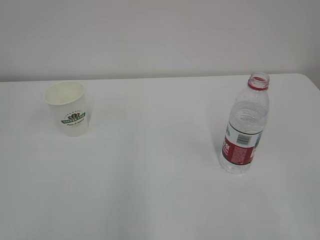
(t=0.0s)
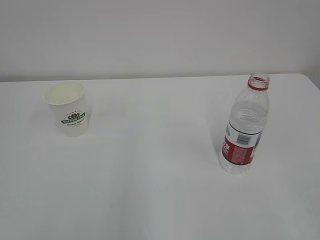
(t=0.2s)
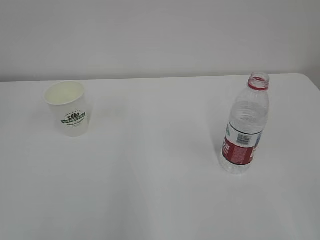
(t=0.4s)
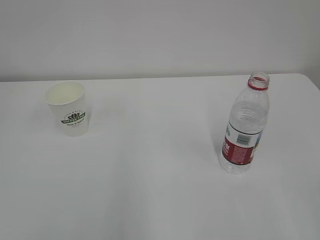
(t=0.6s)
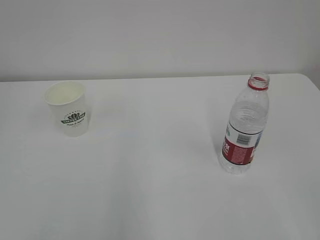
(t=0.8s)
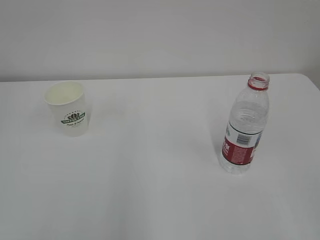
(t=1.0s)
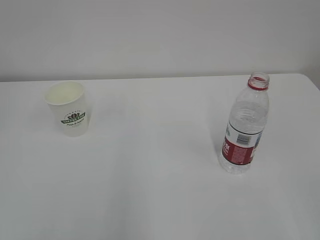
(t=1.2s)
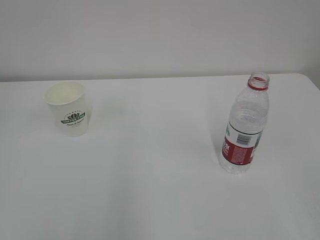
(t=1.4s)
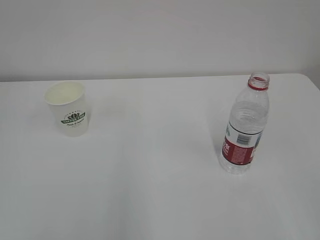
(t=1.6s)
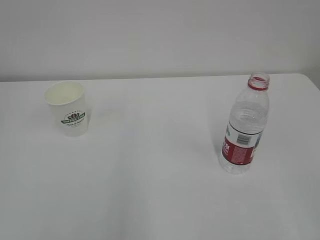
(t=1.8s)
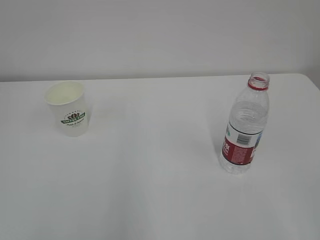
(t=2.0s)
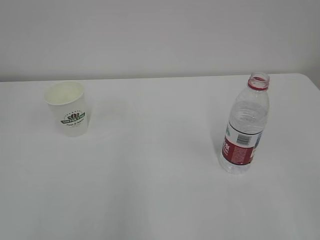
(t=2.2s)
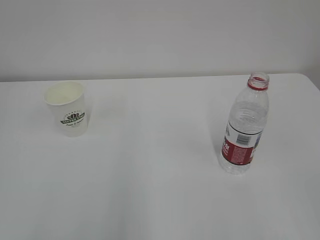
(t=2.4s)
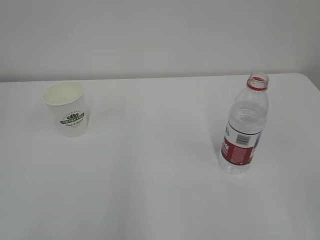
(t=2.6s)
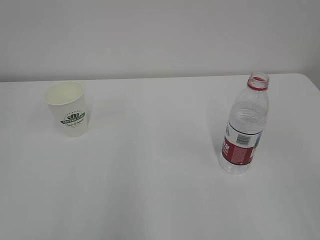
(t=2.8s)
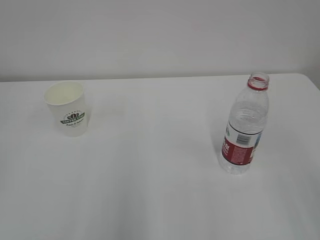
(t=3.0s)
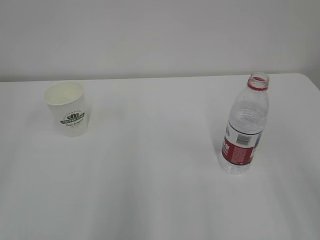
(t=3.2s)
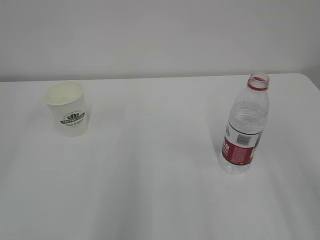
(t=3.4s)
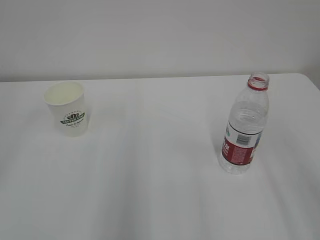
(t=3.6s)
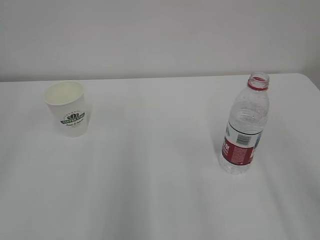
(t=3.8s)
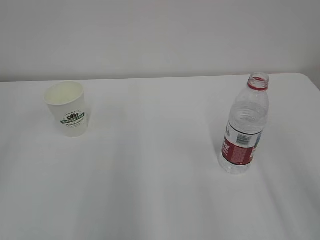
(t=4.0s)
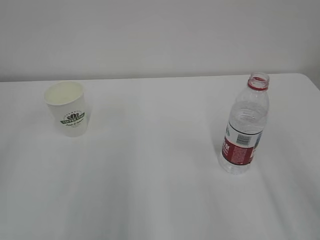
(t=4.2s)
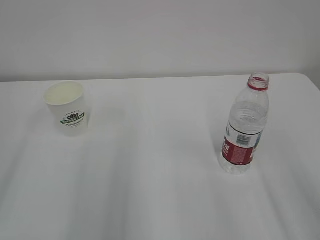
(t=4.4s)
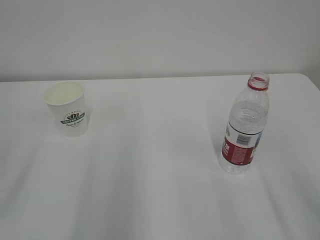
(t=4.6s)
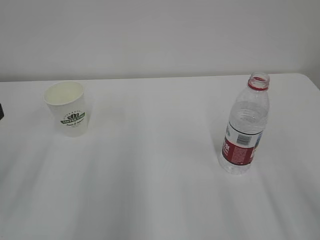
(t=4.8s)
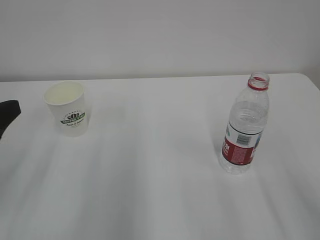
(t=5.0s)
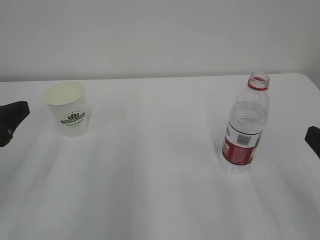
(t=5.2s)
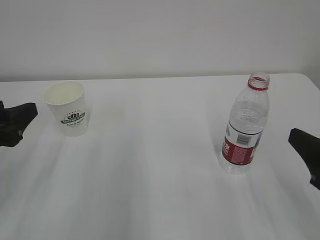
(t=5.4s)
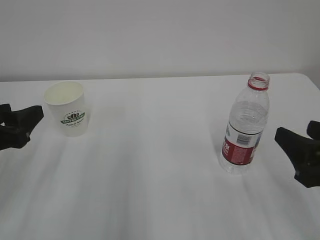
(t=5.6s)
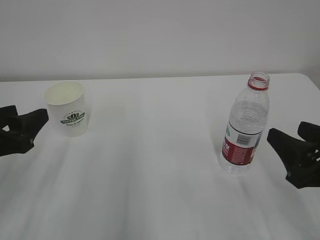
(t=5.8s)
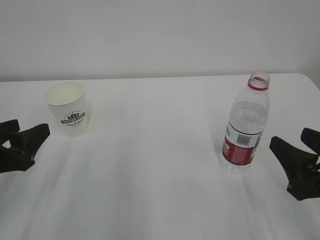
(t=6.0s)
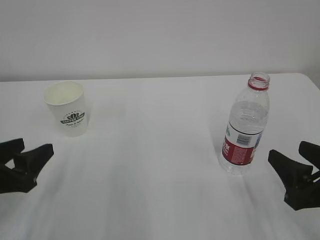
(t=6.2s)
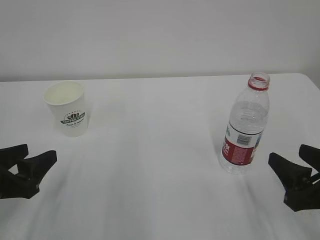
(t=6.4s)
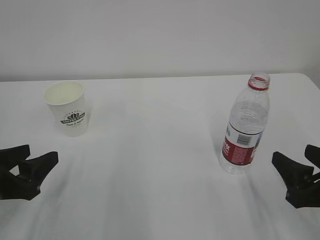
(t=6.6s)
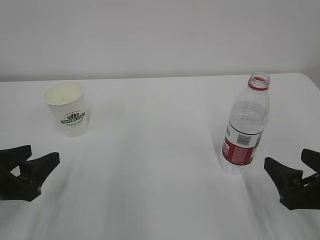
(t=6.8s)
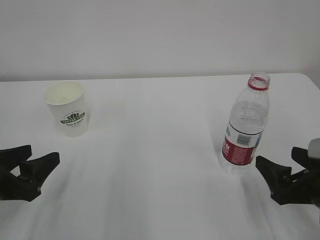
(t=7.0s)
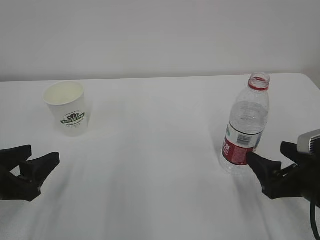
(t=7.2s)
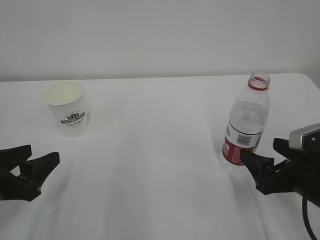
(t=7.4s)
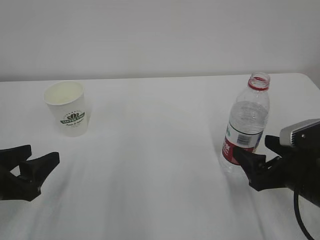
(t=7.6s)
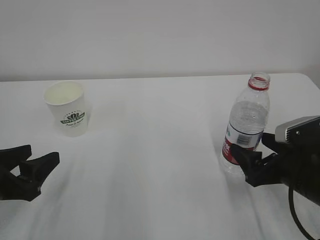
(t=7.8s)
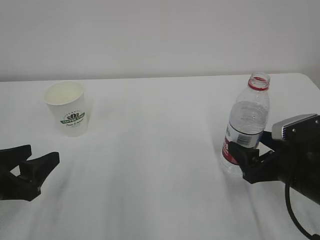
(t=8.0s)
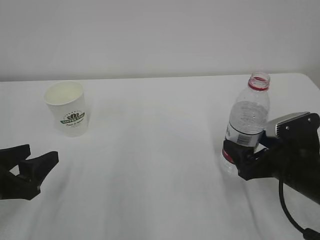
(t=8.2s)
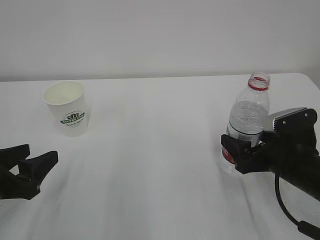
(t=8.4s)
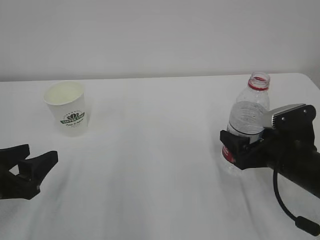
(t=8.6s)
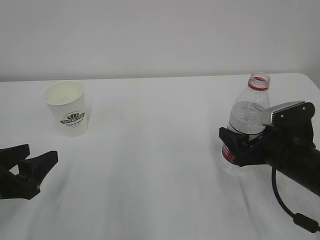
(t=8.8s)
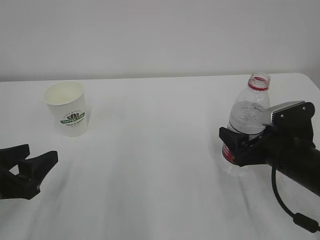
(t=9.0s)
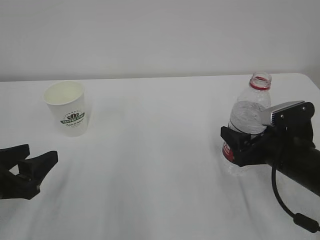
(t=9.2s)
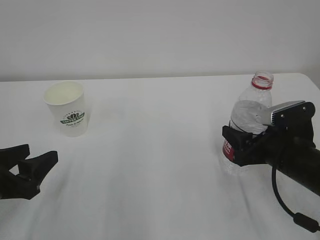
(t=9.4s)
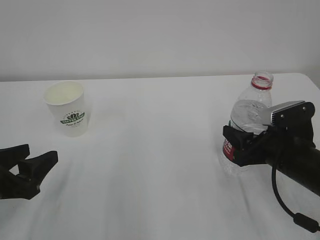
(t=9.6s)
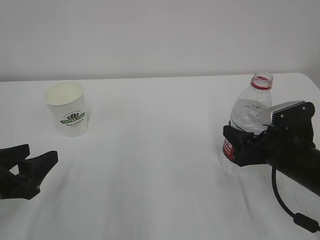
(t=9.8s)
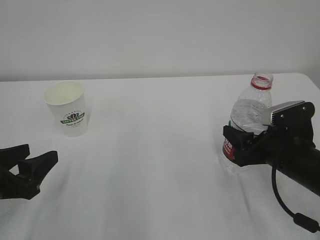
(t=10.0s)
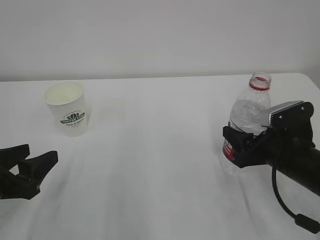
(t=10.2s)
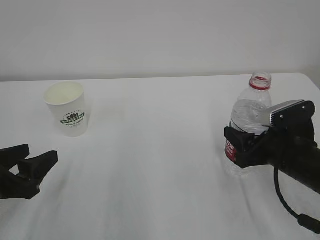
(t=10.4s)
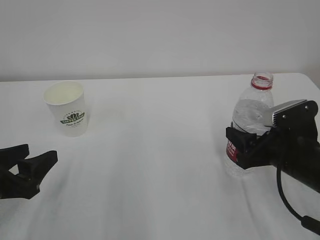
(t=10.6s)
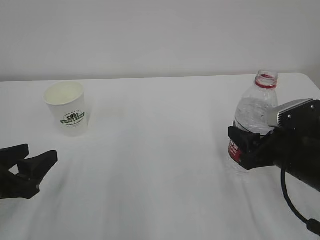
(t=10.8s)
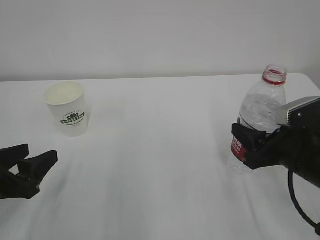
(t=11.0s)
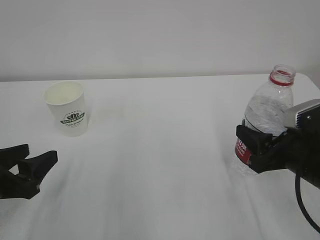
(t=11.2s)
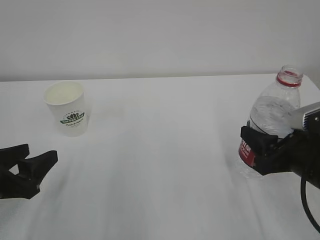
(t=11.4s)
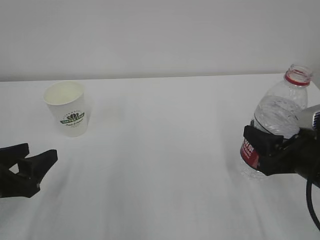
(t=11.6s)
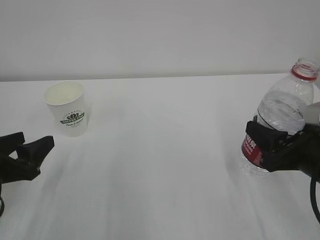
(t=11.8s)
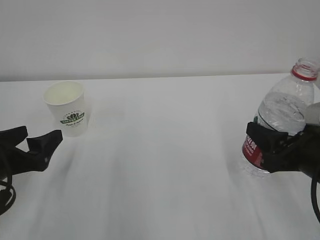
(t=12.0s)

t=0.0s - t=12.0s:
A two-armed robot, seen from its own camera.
t=4.4s - t=6.0s: The left gripper heads downward, forward and to the right, covering some 15 cm, while the right gripper is displaced downward and forward by about 10 cm.
t=6.0s - t=7.6s: The right gripper travels forward by about 5 cm, and opens up.
t=7.6s - t=9.0s: The grippers move only a little.
t=9.0s - t=10.4s: The right gripper closes up.
t=10.4s - t=12.0s: The right gripper heads backward, covering roughly 5 cm, while the left gripper opens its fingers.

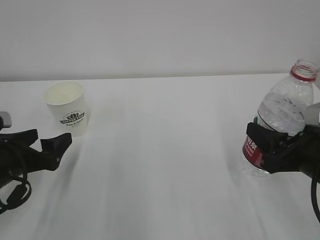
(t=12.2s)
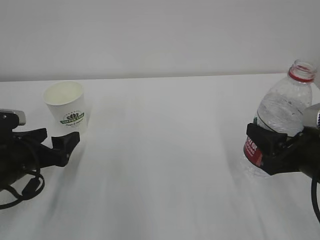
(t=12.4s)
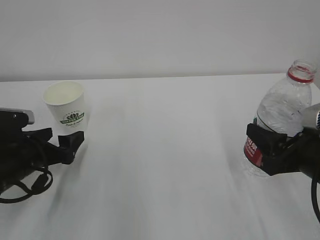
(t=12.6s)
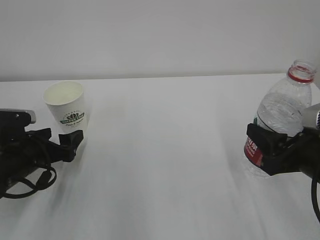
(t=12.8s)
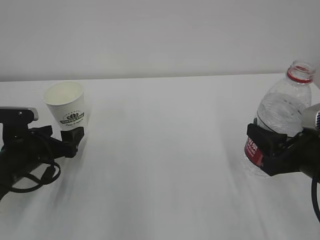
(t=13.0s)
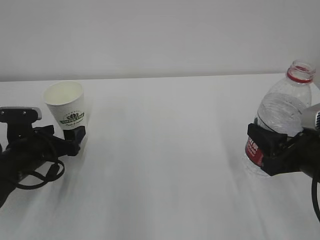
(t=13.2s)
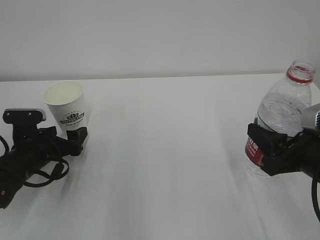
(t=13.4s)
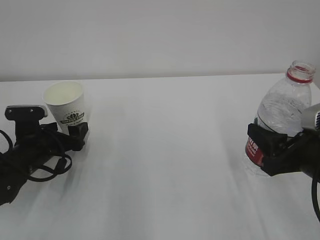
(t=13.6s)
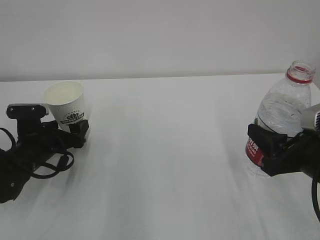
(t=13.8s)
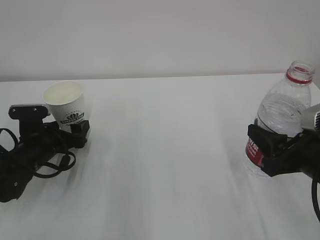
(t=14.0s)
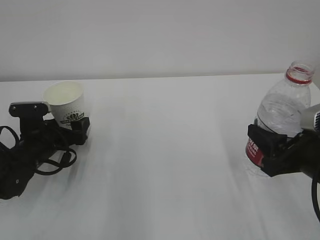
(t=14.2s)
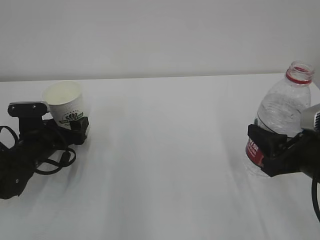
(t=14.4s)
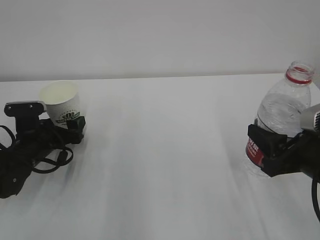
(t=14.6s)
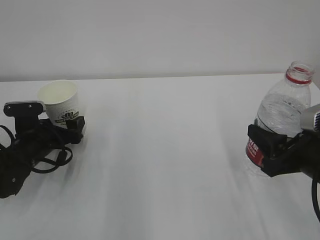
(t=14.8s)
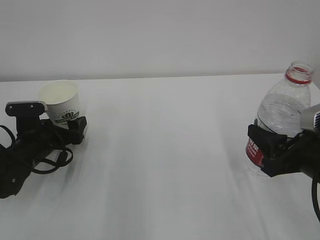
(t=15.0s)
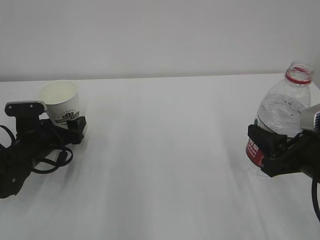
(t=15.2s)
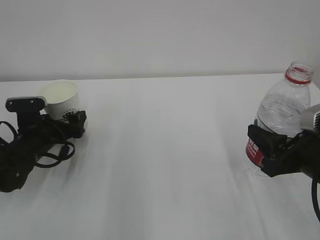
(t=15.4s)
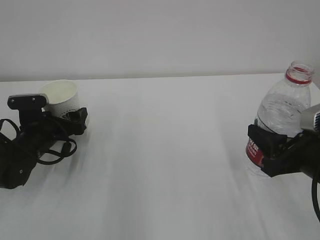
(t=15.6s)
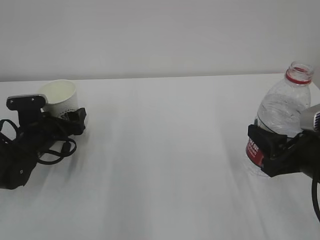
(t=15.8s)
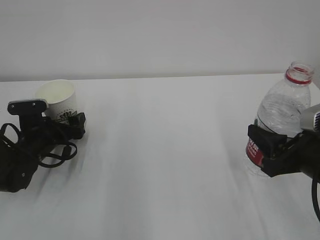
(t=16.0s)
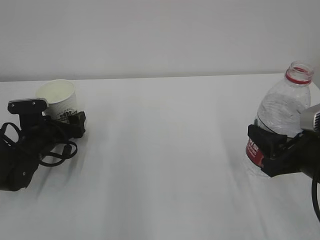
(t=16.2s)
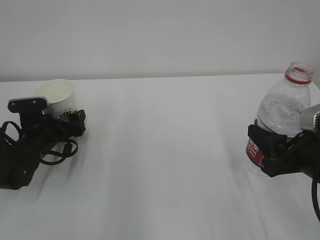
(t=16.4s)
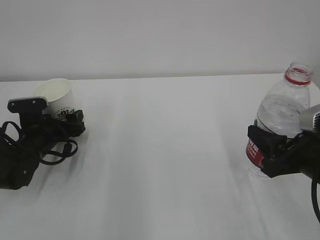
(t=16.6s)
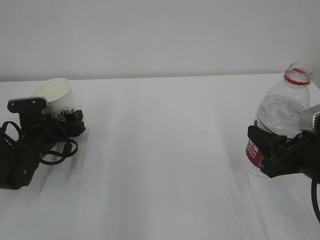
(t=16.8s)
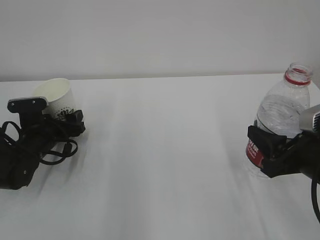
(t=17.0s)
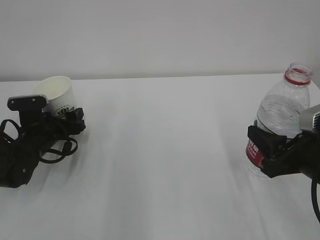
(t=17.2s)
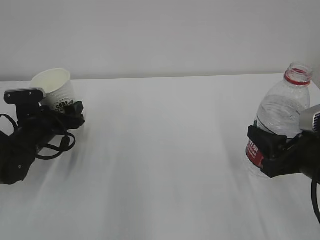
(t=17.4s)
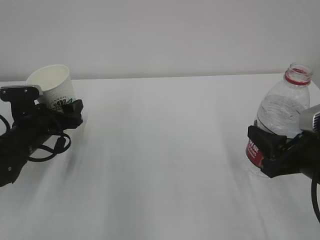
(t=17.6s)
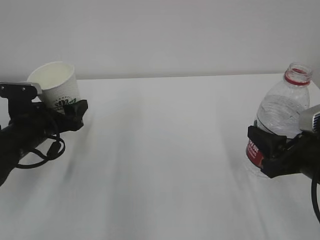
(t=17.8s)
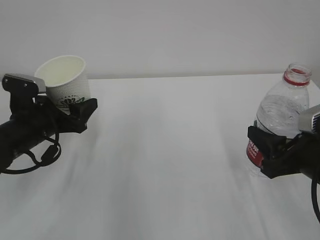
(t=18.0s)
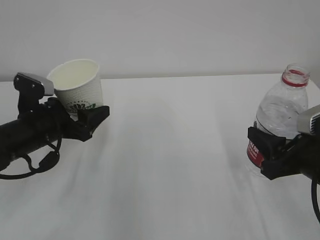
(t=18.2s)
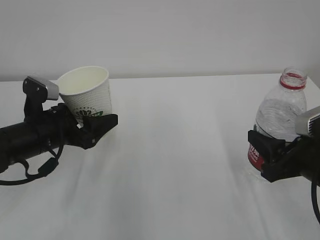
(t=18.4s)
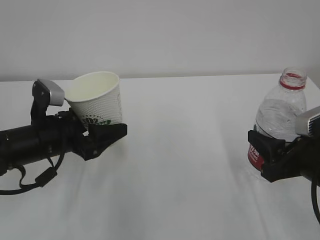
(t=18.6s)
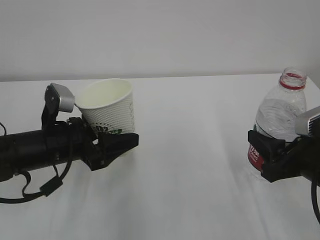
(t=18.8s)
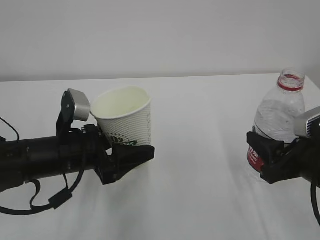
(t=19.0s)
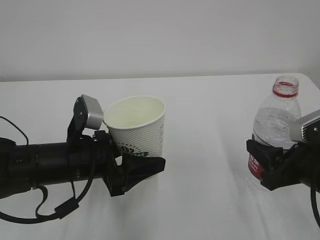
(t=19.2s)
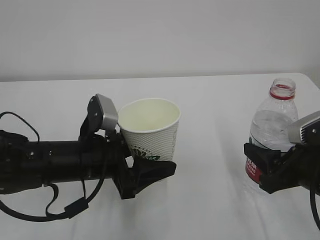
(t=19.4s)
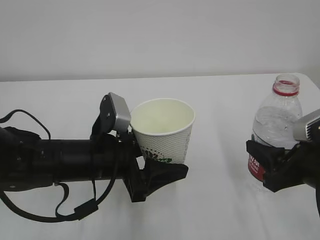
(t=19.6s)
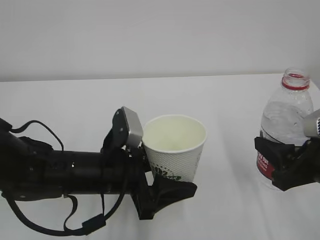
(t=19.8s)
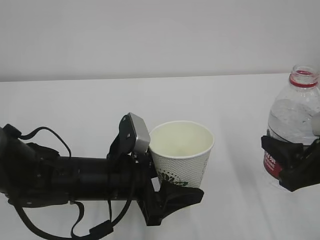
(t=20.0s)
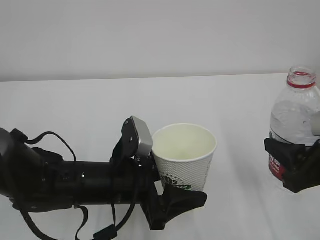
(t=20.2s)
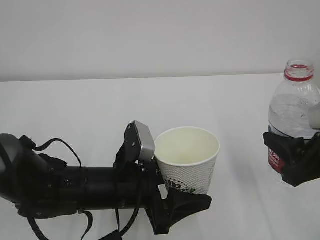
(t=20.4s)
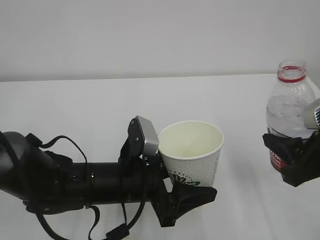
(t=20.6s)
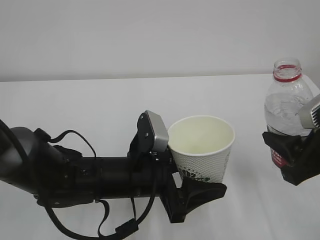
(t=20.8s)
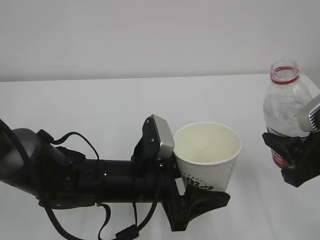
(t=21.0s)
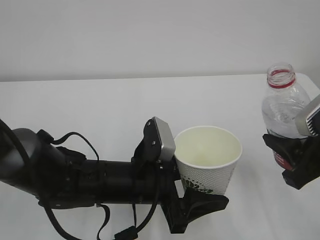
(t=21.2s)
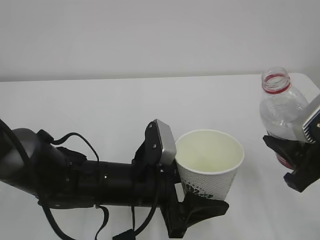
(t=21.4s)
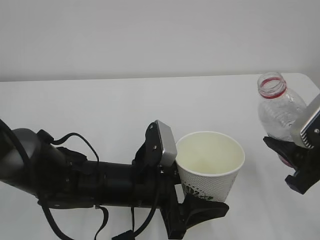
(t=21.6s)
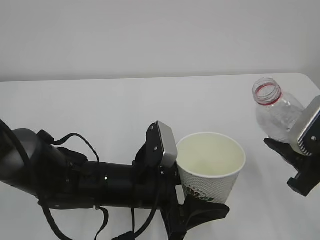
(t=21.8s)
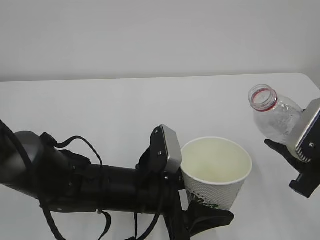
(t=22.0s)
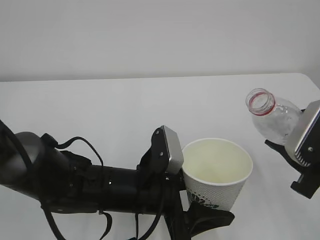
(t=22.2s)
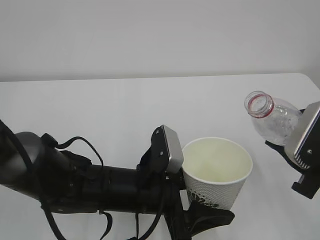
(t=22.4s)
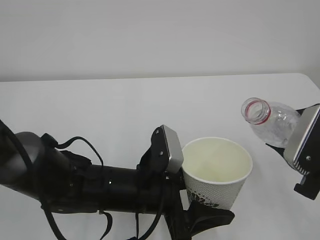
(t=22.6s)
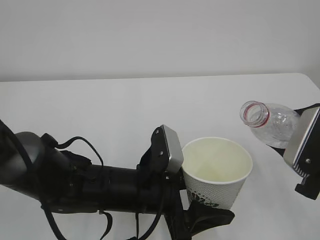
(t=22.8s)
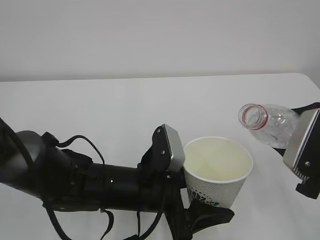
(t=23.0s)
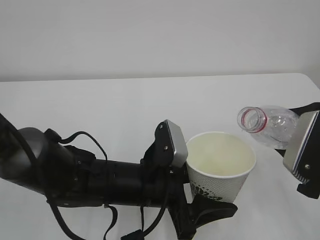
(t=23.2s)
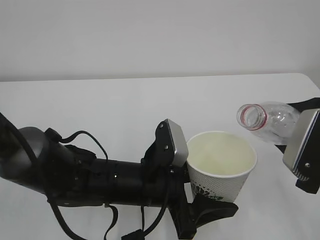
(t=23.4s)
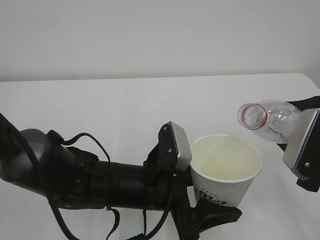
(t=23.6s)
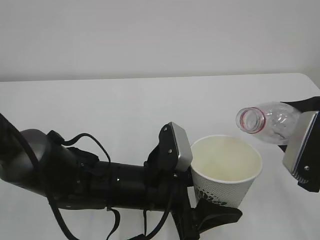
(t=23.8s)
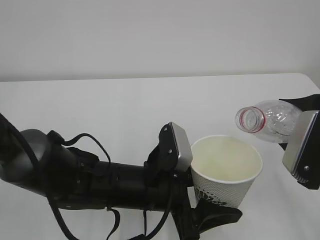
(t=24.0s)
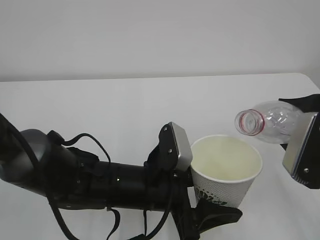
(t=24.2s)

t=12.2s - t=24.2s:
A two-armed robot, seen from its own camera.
t=12.2s - t=13.8s: The left gripper is displaced forward and downward by some 10 cm.
t=13.8s - t=15.2s: Both grippers stay put.
t=15.2s - t=16.6s: The left gripper closes its fingers.
t=16.6s - t=18.2s: The left gripper moves upward and backward, about 10 cm.
t=18.2s - t=19.8s: The left gripper is displaced to the right and backward by roughly 15 cm.
t=19.8s - t=21.2s: The grippers move only a little.
t=22.6s - t=24.2s: The grippers stay close to where they were, moving slightly.
